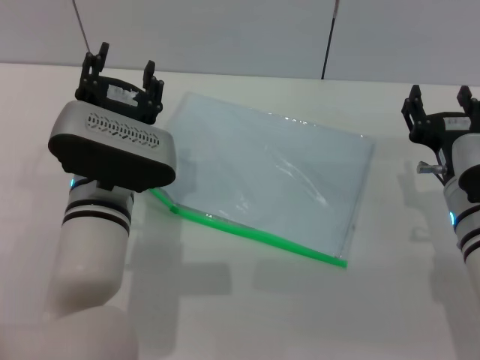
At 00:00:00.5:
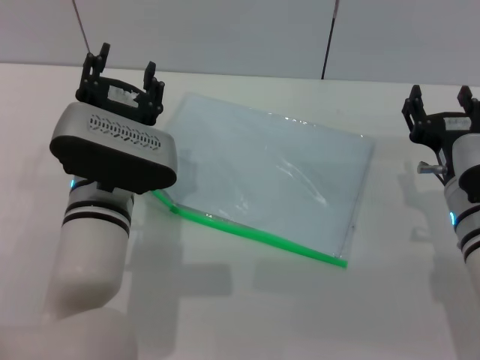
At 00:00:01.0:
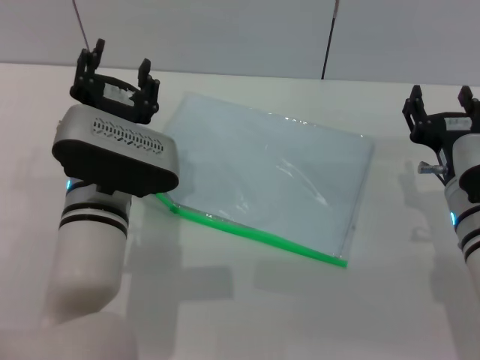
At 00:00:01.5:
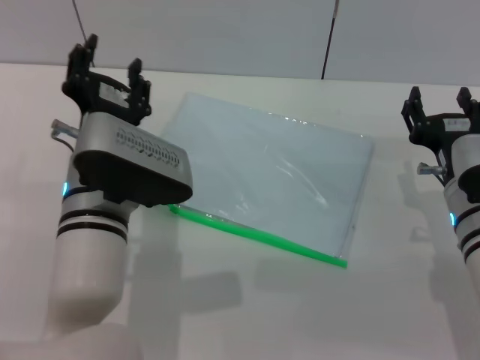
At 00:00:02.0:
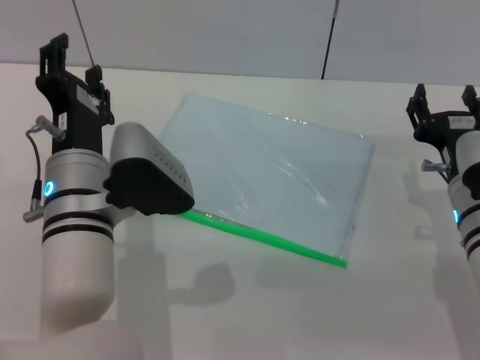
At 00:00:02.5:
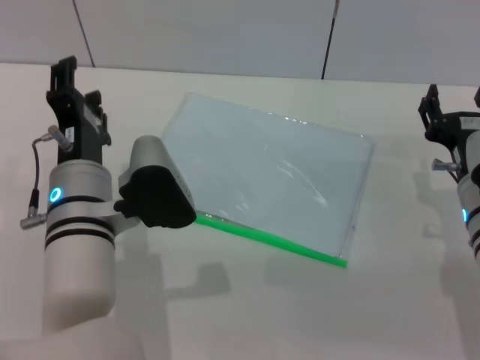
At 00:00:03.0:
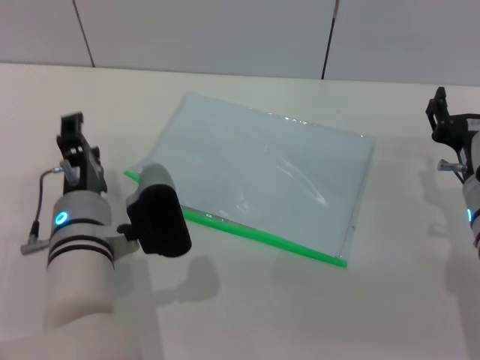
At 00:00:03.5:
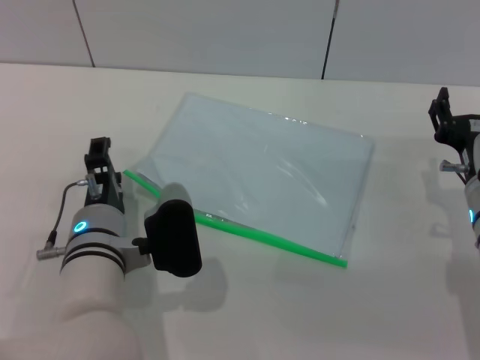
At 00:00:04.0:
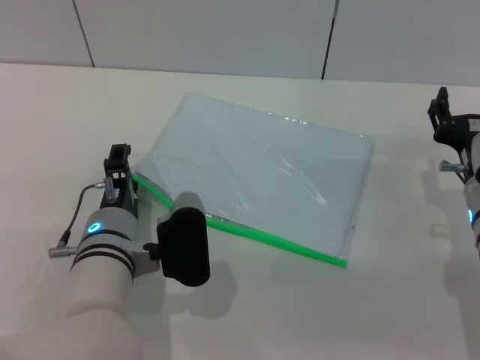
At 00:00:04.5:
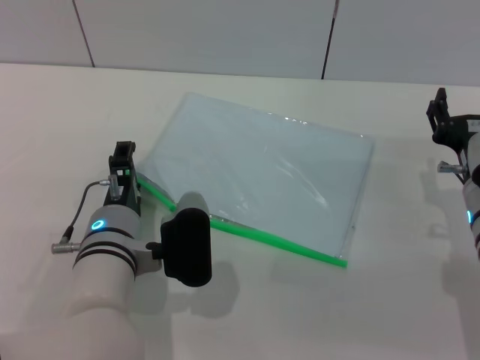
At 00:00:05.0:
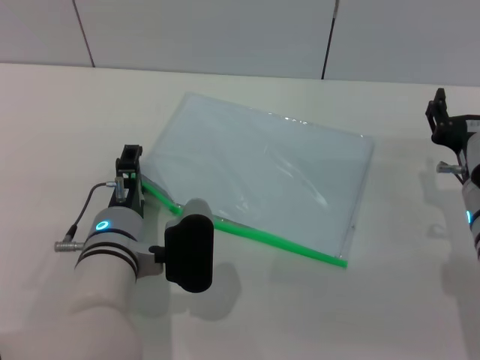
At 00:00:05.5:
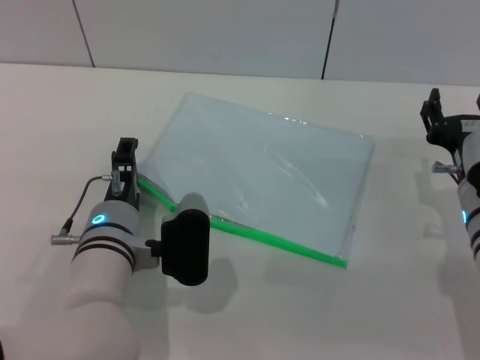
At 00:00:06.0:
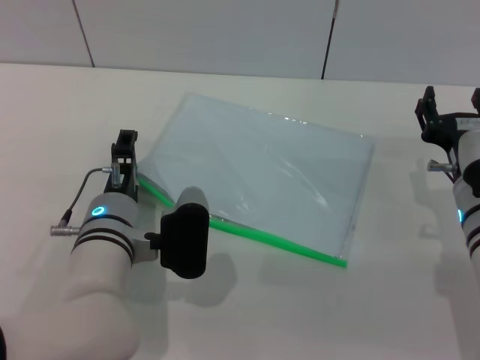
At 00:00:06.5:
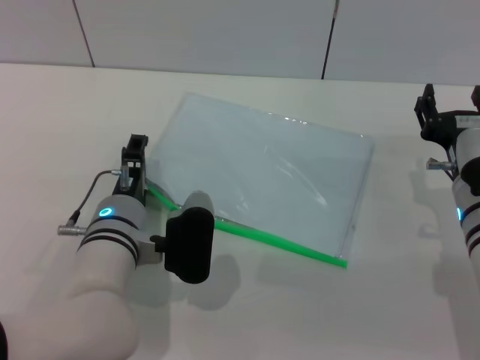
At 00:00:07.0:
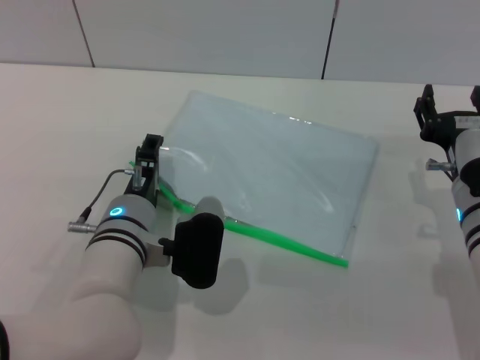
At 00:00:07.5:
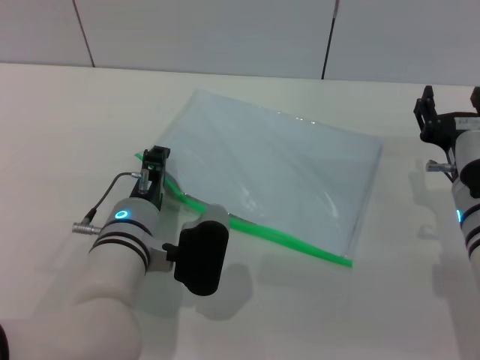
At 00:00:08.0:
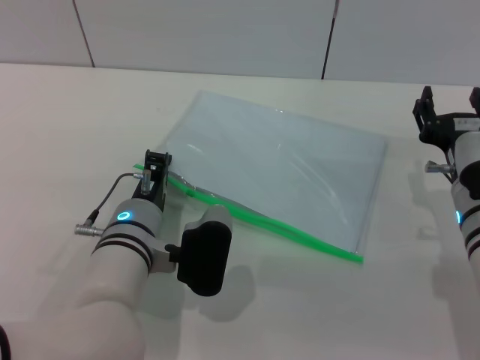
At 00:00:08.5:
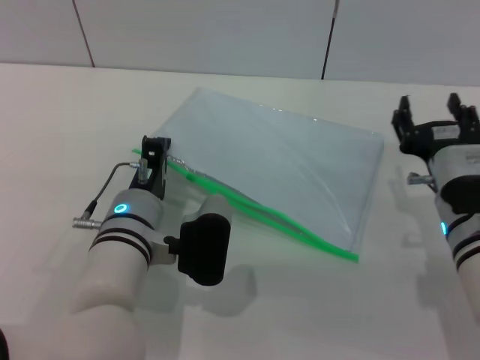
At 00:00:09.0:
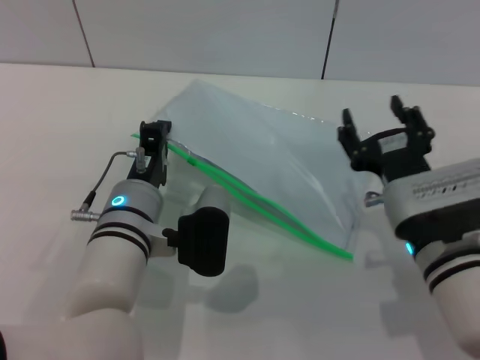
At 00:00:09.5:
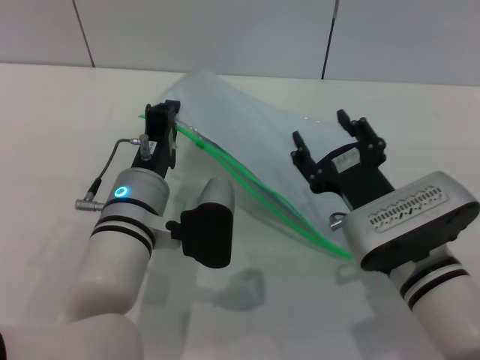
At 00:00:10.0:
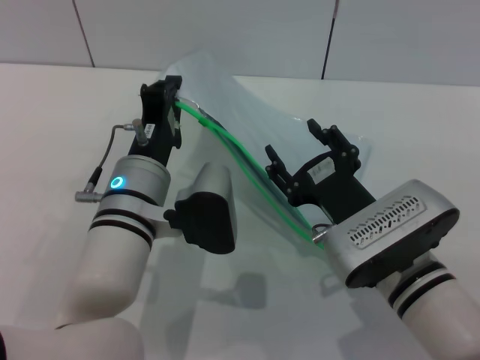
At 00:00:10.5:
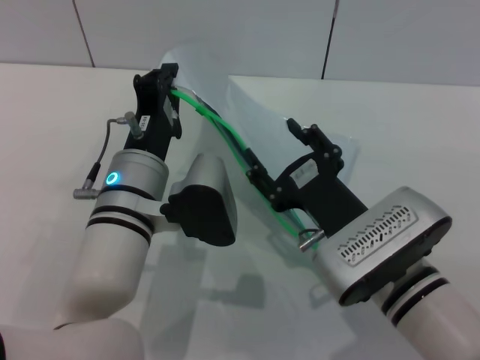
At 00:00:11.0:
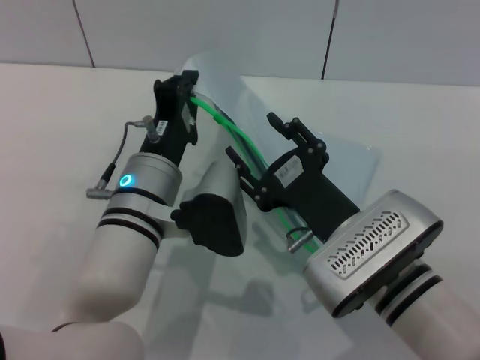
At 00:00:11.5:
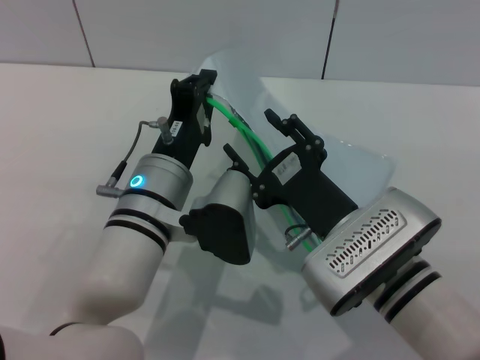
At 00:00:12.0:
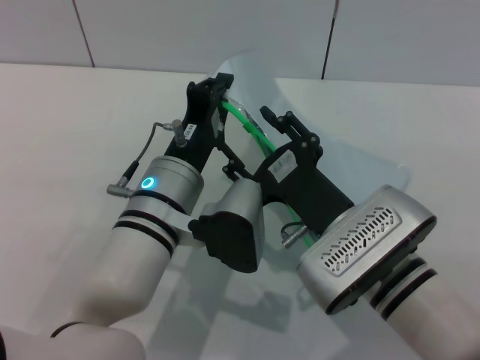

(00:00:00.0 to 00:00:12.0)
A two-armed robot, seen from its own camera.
Step, 00:00:00.0 - 00:00:08.5: Pick up the transparent plastic bag with the left gripper.
00:00:02.0 - 00:00:04.0: The left gripper shifts about 5 cm downward.
00:00:04.0 - 00:00:06.0: The grippers make only small movements.
00:00:06.0 - 00:00:08.0: The left gripper closes its fingers.
00:00:08.0 - 00:00:10.0: The right gripper shifts about 10 cm to the left.

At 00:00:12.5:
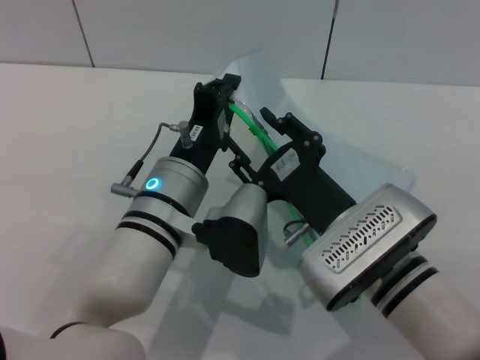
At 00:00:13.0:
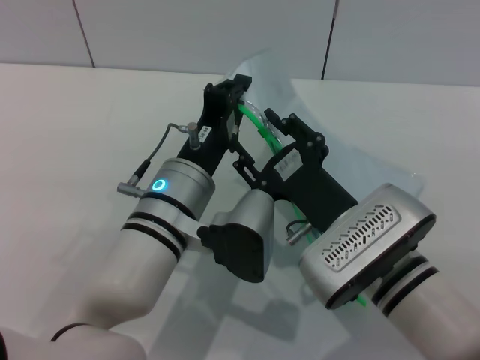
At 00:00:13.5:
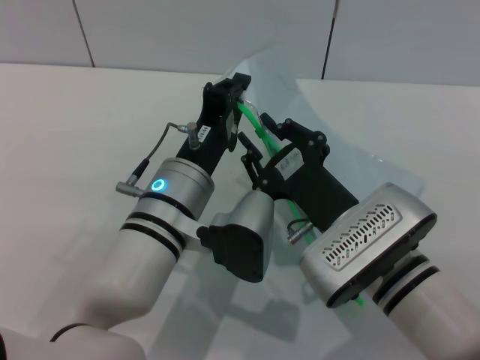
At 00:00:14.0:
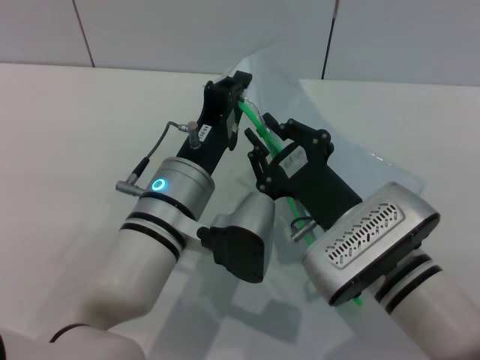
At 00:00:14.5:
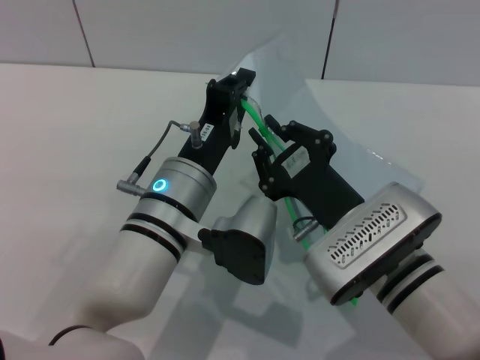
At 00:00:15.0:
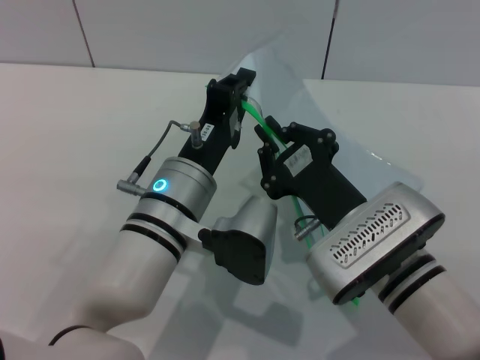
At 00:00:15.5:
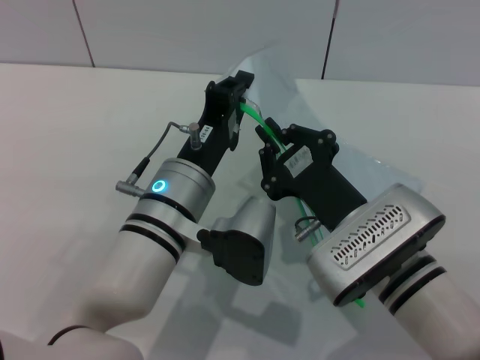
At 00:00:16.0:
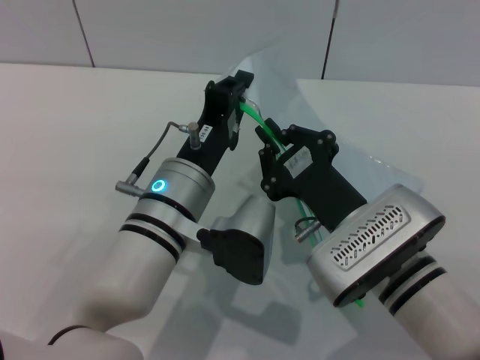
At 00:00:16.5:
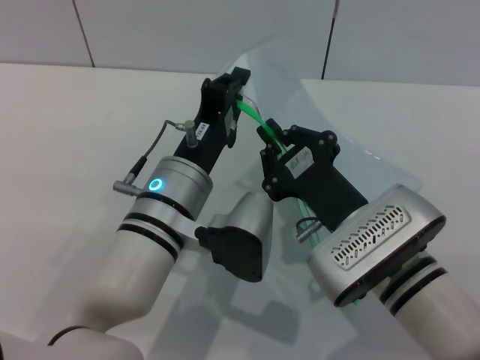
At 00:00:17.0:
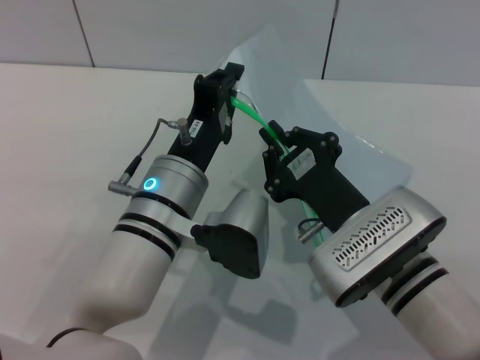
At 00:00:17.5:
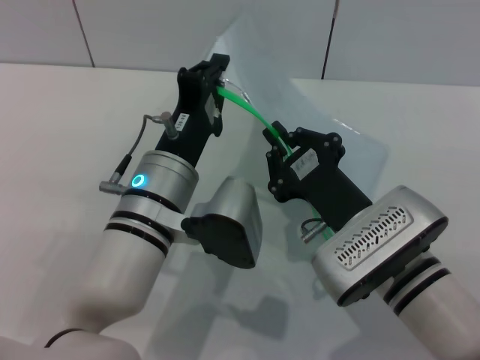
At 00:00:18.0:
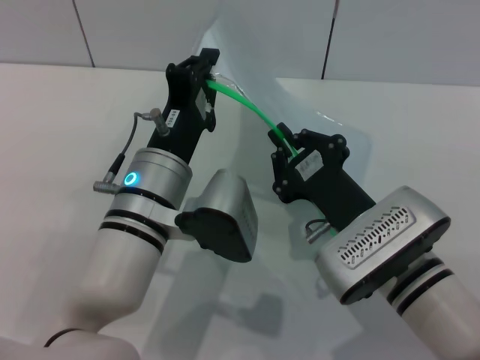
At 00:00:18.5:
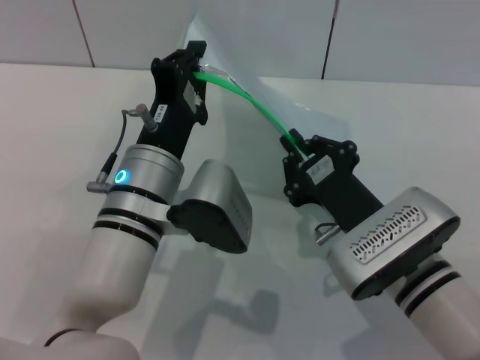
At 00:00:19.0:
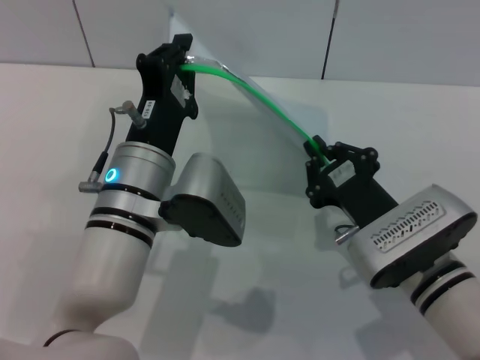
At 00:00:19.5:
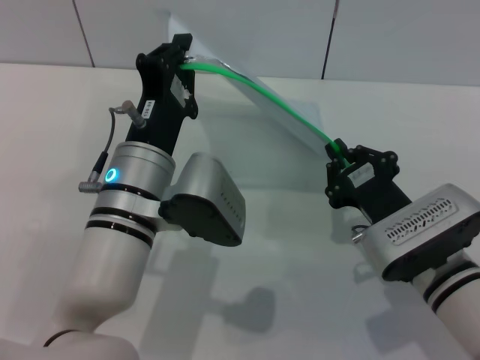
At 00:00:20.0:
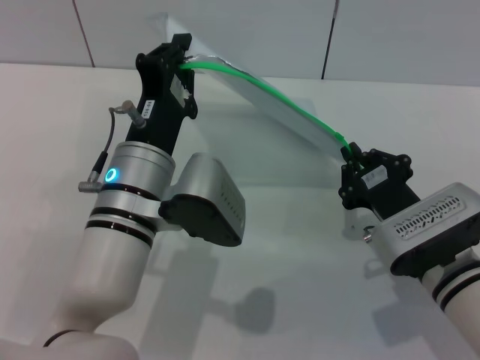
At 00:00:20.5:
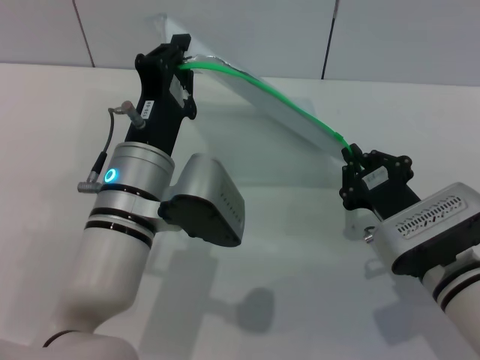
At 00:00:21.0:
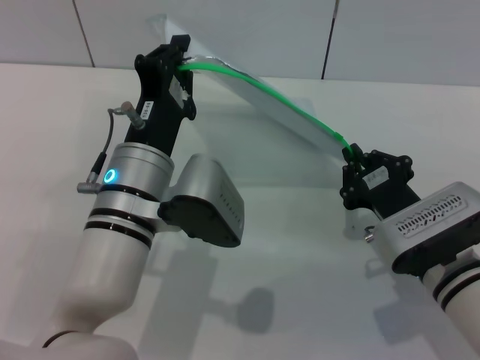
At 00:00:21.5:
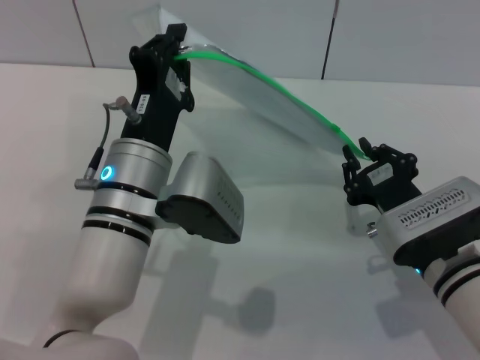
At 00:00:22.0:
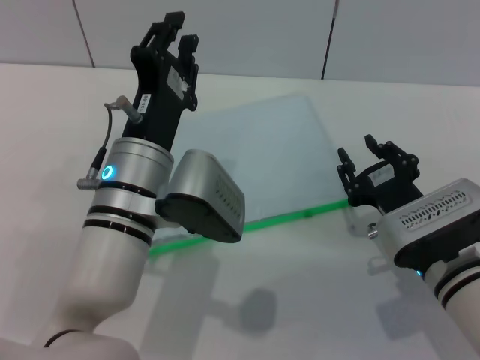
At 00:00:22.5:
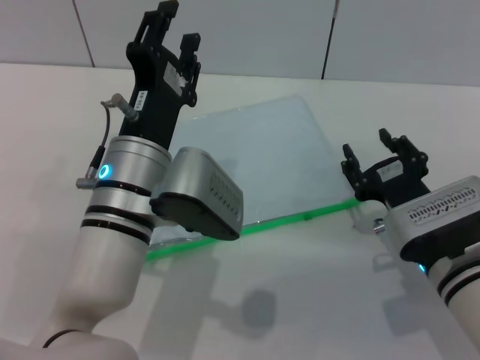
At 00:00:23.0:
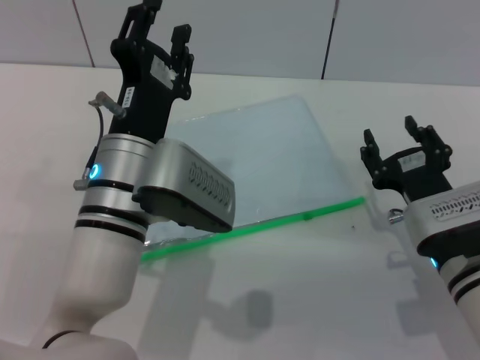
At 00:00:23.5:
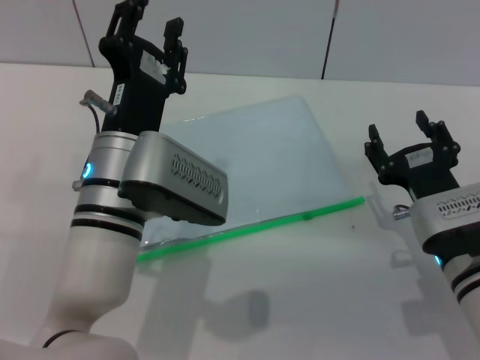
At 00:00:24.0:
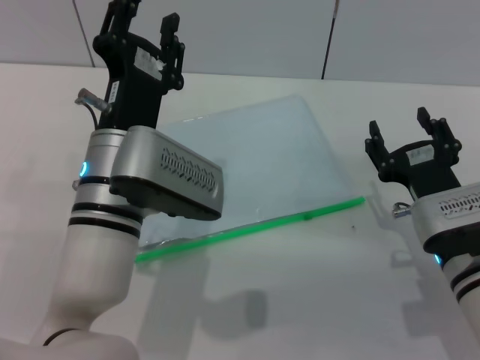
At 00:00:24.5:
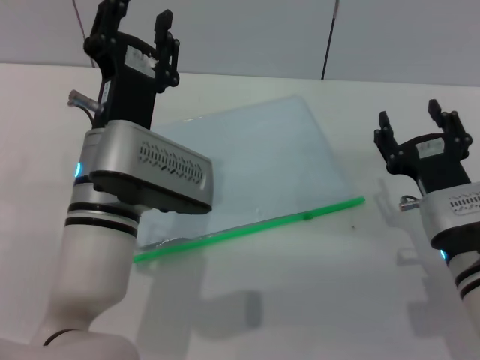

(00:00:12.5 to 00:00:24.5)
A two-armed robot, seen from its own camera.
Step, 00:00:12.5 - 00:00:21.5: Pulling up the zipper on the transparent plastic bag with the right gripper to close it.
Step, 00:00:22.5 - 00:00:23.0: Place the transparent plastic bag.
00:00:12.5 - 00:00:14.5: The right gripper closes up.
00:00:14.5 - 00:00:16.5: Both grippers stay about where they are.
00:00:18.5 - 00:00:20.5: The right gripper moves some 5 cm.
00:00:20.5 - 00:00:22.5: The right gripper opens. The left gripper opens up.
